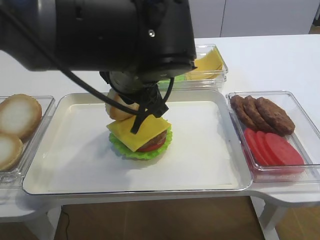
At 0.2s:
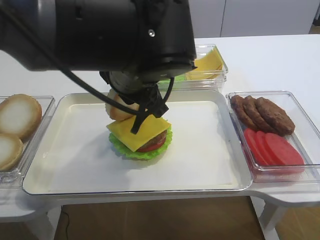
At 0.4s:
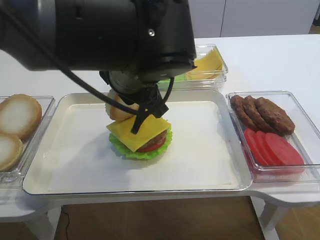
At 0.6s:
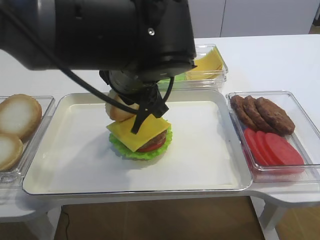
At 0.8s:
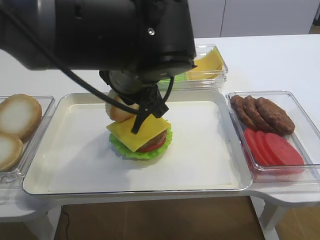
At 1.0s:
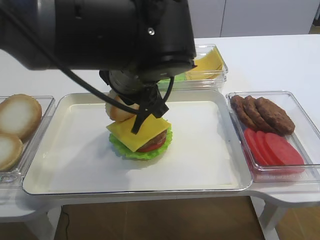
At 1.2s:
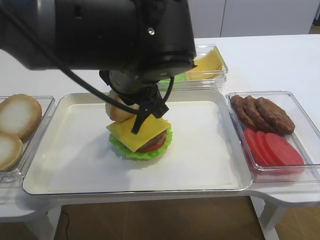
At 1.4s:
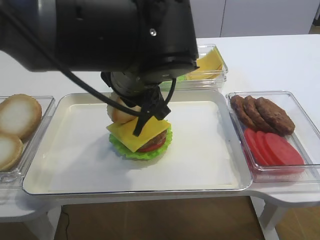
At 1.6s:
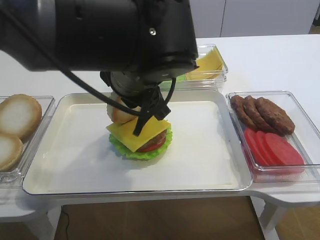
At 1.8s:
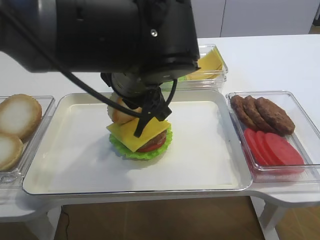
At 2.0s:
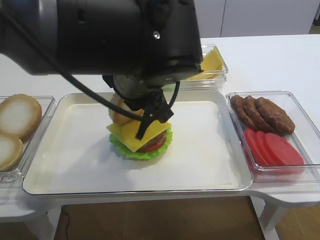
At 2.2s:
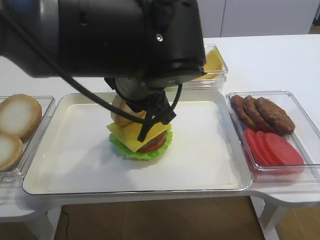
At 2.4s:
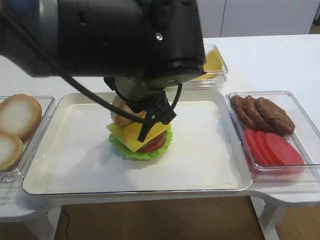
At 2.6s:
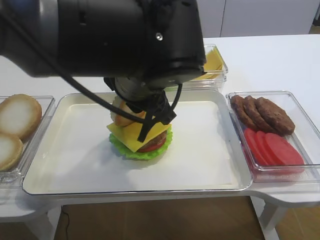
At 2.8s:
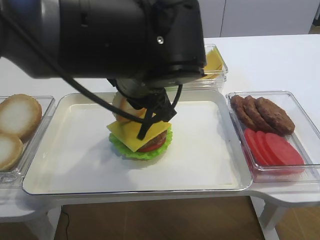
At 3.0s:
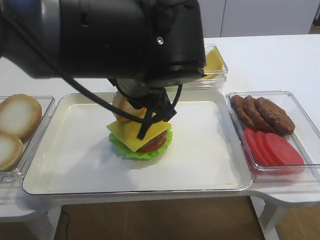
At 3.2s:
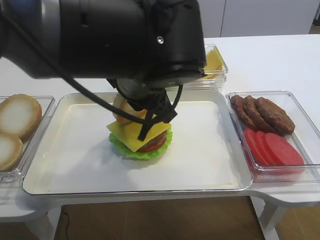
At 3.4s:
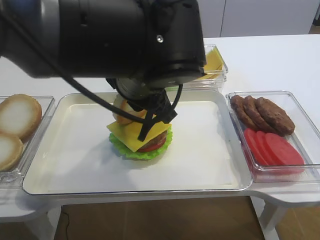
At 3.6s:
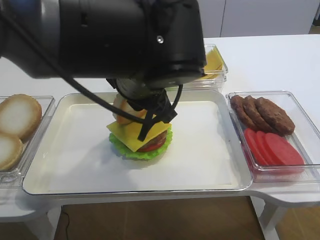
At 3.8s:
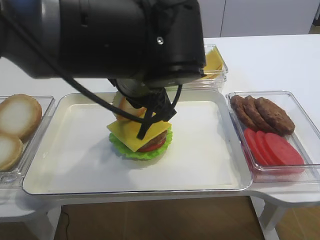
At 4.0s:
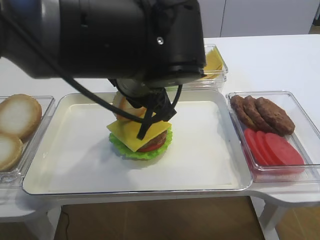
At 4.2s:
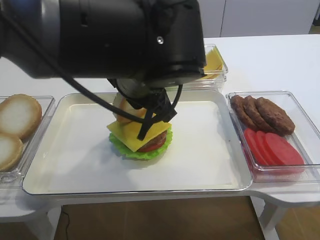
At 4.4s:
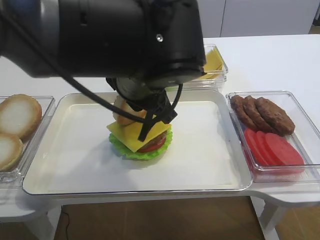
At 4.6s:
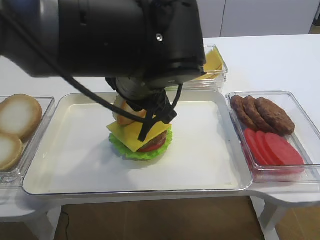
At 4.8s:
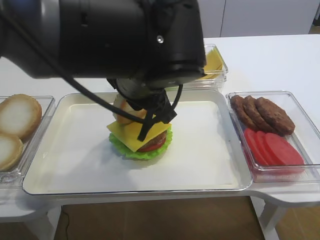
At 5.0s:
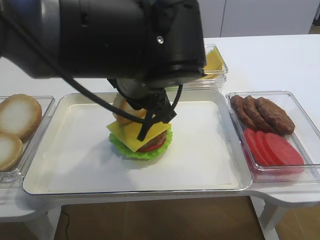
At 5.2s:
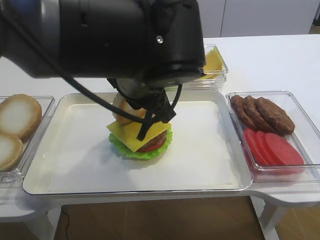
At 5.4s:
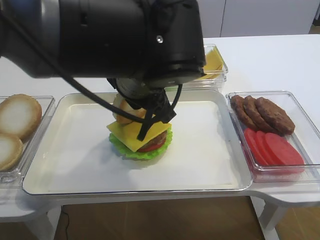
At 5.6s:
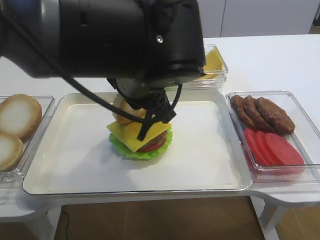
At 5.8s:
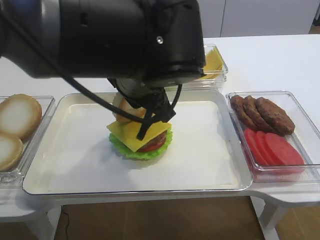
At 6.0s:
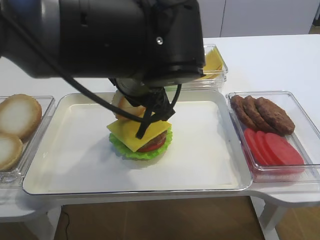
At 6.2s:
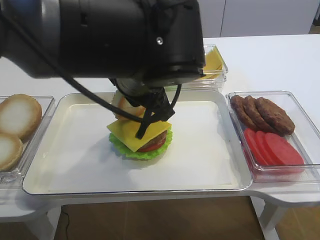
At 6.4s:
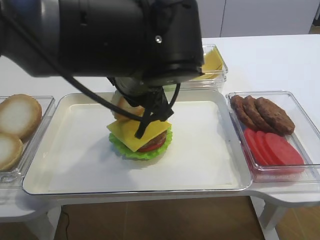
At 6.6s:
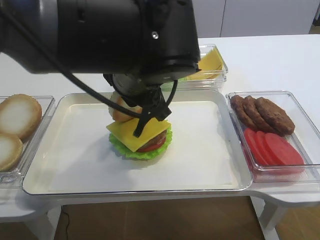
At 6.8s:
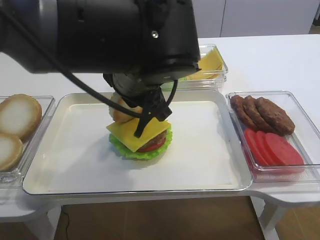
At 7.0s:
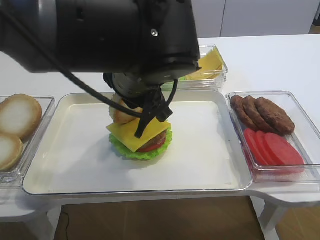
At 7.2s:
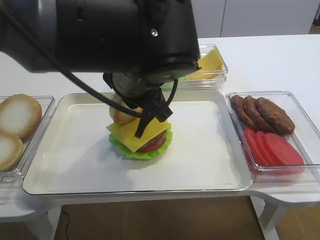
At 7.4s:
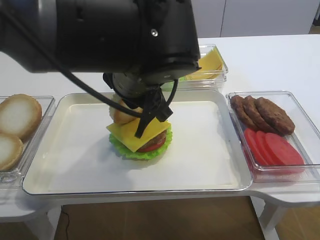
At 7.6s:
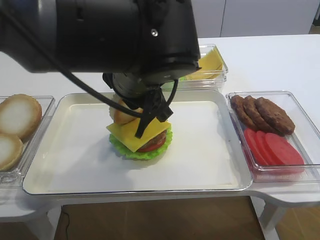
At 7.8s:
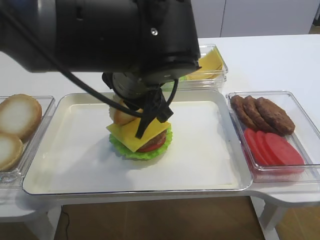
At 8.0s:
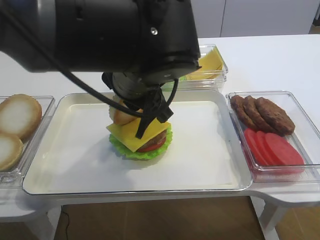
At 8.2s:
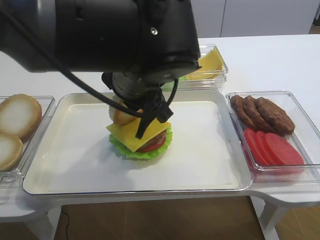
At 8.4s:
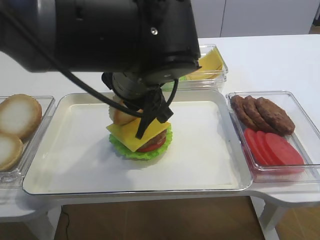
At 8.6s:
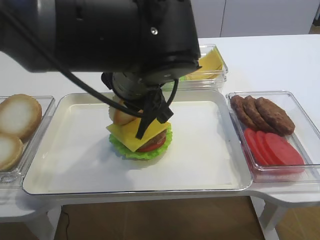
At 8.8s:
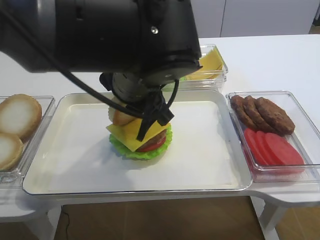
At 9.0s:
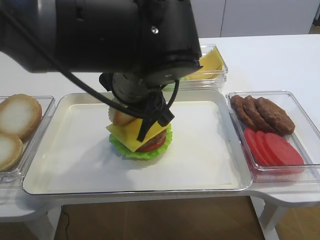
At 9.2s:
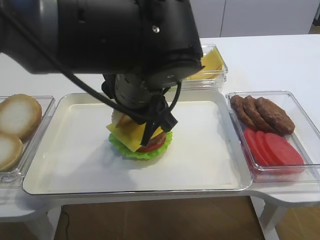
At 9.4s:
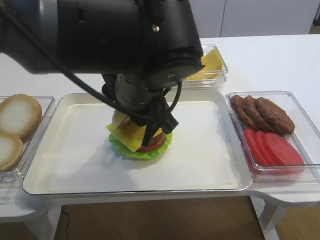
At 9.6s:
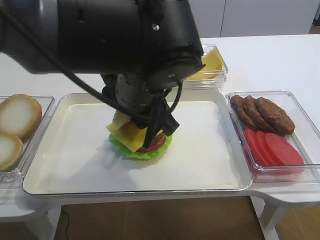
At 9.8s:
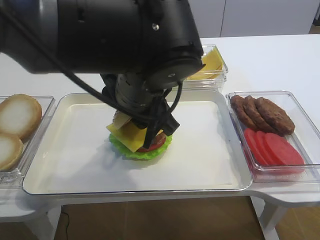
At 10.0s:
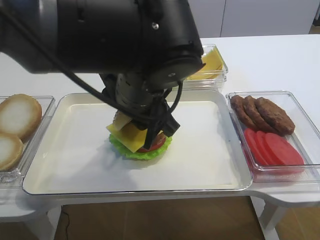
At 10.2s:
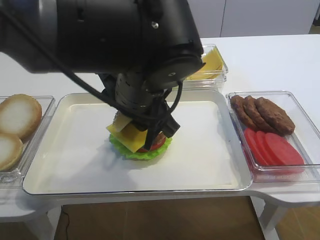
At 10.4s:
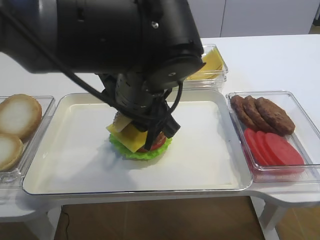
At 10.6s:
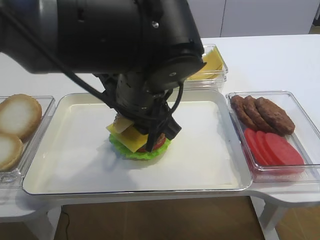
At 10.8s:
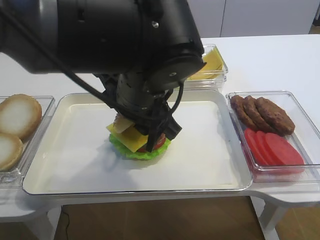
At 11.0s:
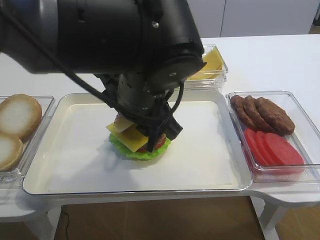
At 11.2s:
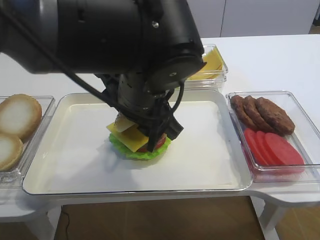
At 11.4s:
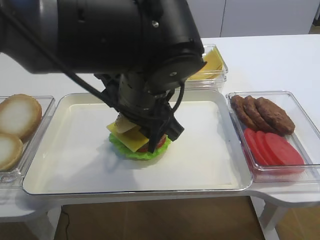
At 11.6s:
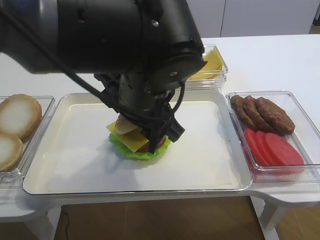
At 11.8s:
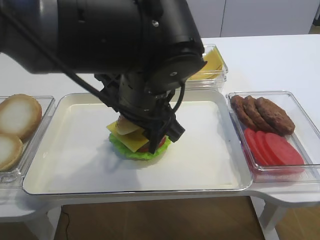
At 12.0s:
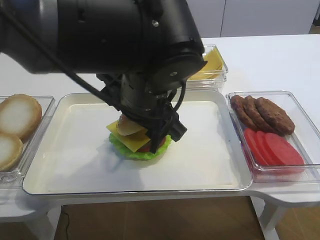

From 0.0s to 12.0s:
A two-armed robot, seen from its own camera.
From 0.0s to 1.6s: Both grippers stay put.
From 1.6s to 9.0s: Neither gripper changes place.
From 9.0s to 10.4s: The grippers stay close to where they were, moving slightly.
From 10.4s to 12.0s: The left gripper opens.

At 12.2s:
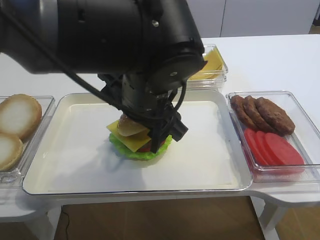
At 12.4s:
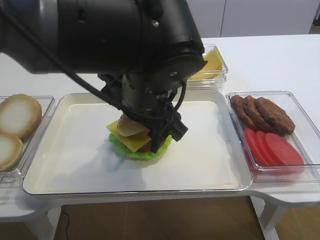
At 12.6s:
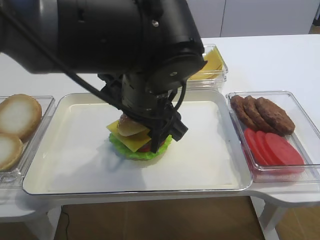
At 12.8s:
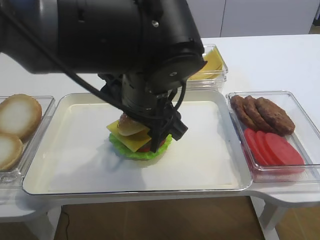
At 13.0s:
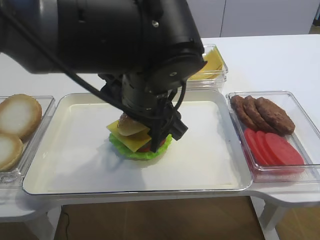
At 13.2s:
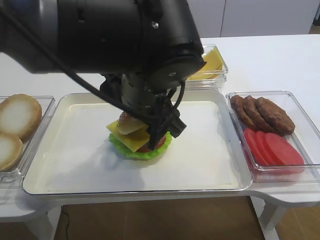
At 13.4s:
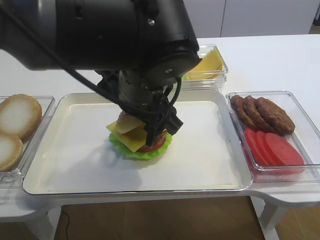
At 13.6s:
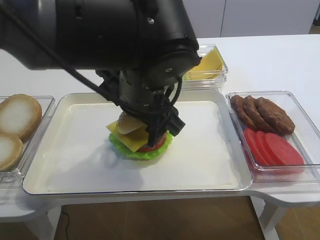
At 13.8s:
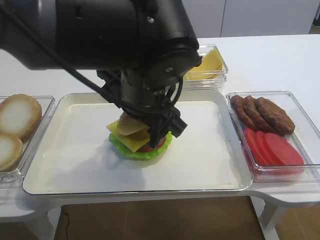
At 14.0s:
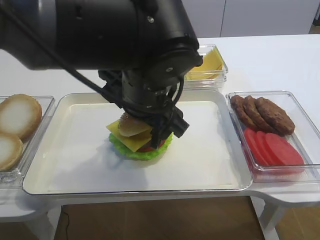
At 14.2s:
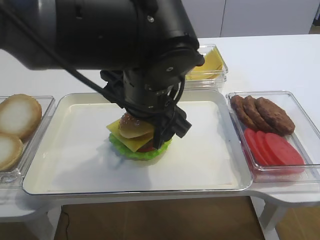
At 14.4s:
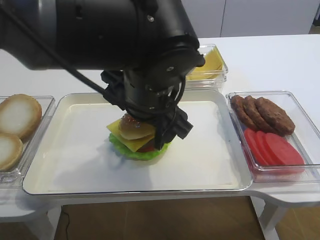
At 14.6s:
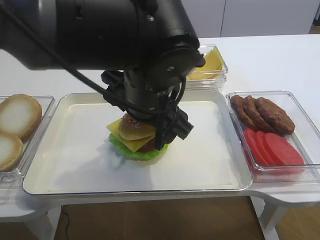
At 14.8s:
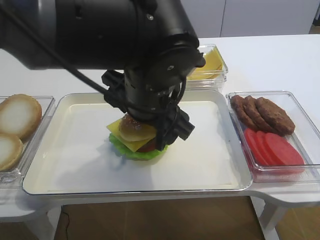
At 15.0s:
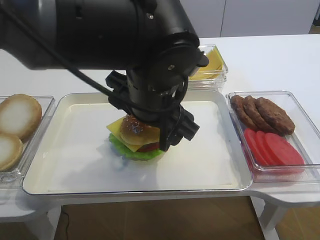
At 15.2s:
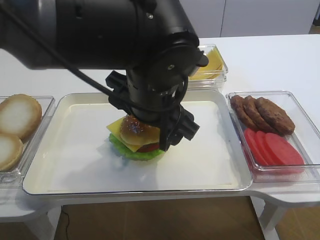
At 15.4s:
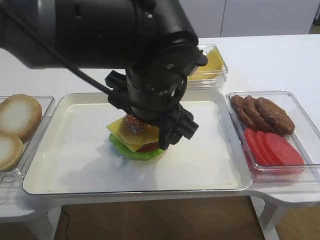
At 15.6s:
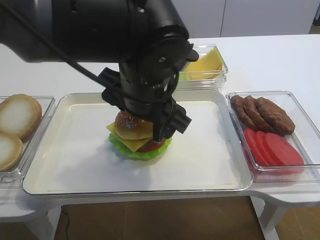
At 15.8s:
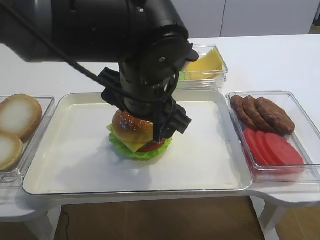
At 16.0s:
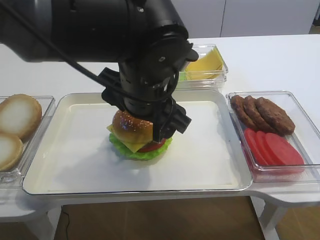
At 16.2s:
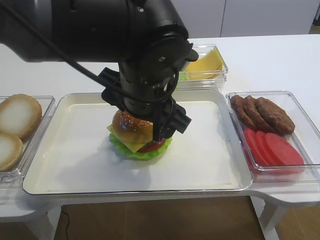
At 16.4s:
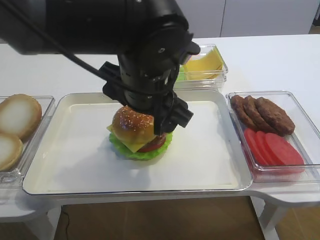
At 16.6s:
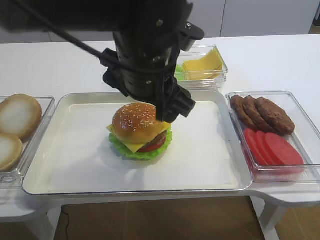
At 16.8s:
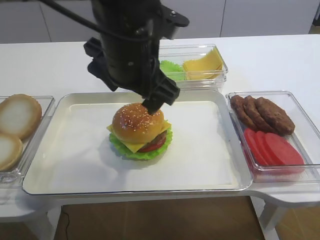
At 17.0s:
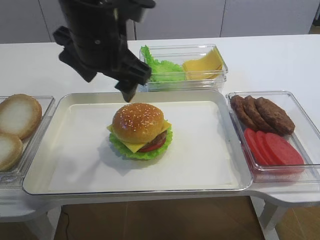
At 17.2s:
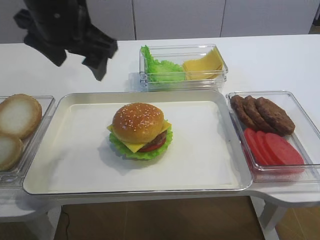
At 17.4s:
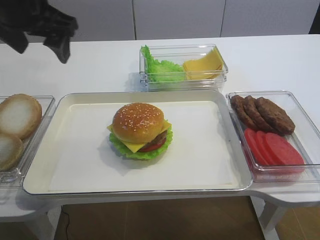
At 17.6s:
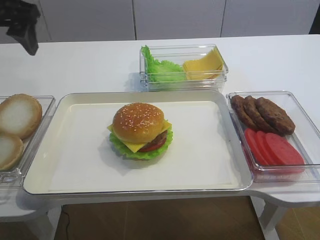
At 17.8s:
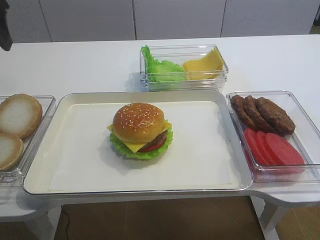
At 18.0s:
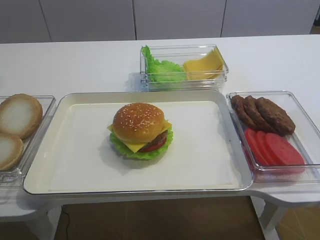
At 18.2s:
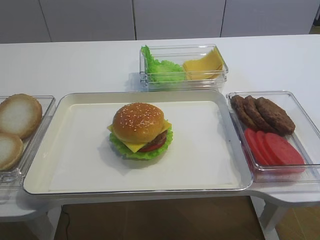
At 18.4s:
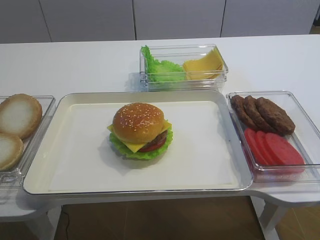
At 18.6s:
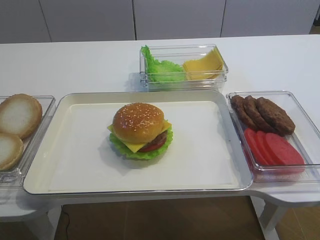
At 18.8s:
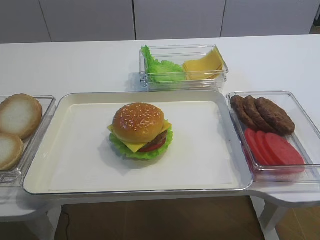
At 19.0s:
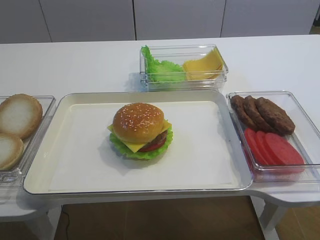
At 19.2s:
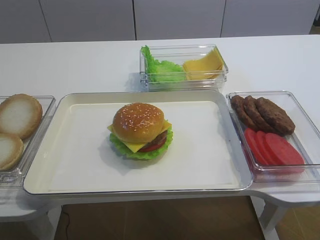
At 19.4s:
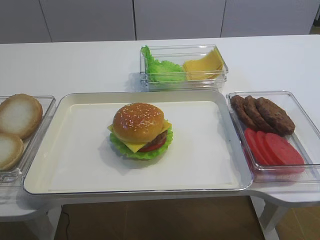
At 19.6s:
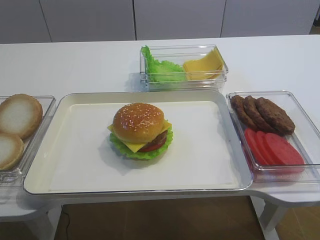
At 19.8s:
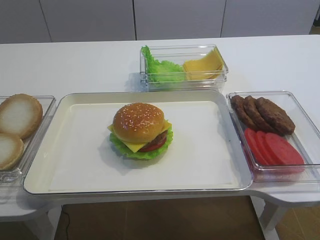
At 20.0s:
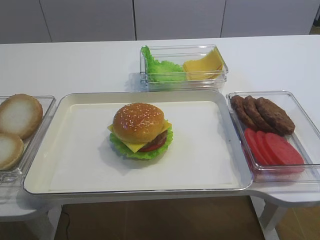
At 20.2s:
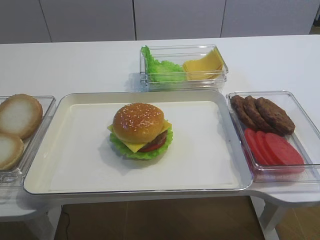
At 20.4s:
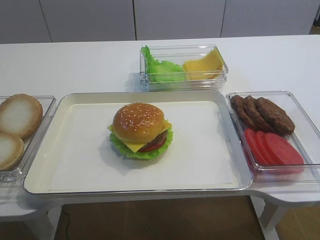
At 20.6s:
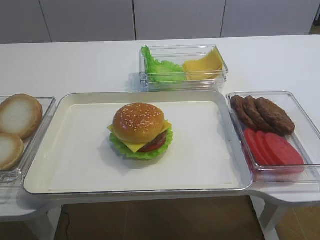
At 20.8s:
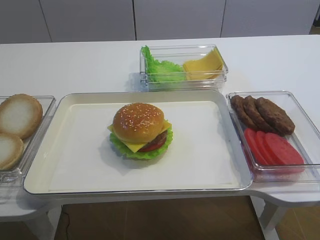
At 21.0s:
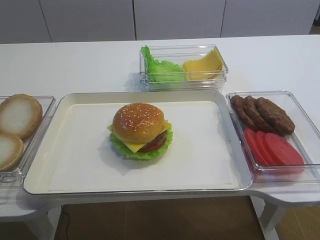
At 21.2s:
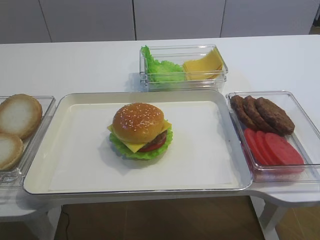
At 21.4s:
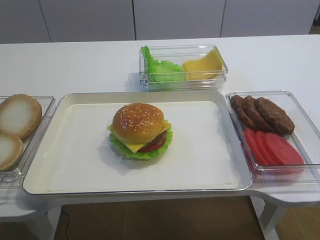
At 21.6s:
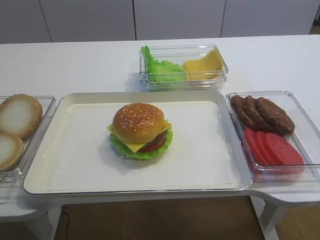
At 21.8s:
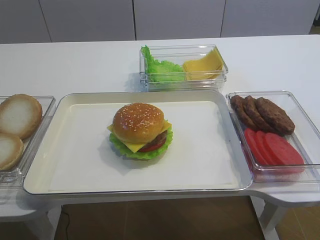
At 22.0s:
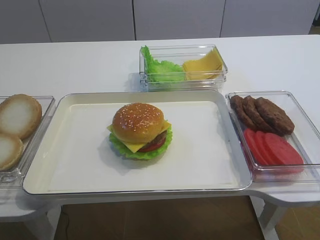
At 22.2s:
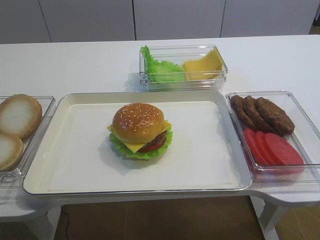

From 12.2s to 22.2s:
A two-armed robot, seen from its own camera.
Step, from 12.2s to 16.8s: Place the hamburger lid on the cheese slice with the left gripper.
From 12.2s to 13.6s: Both grippers stay put.
From 13.6s to 16.4s: The grippers move only a little.
From 16.4s to 18.0s: The left gripper heads to the left, covering approximately 30 cm.

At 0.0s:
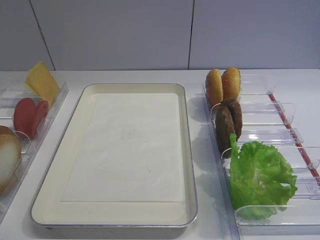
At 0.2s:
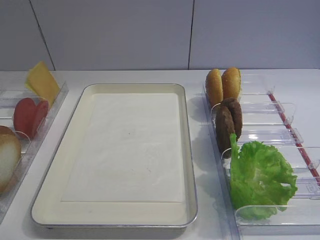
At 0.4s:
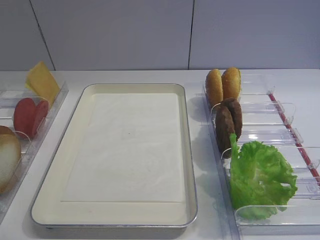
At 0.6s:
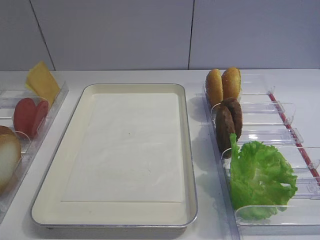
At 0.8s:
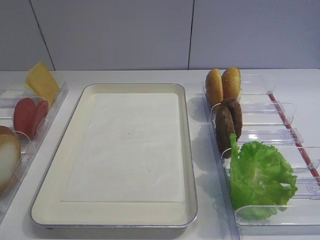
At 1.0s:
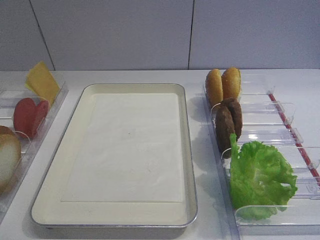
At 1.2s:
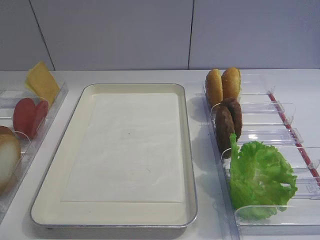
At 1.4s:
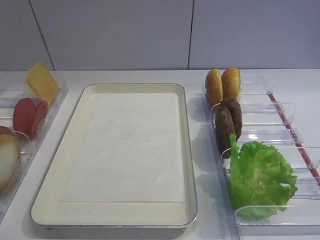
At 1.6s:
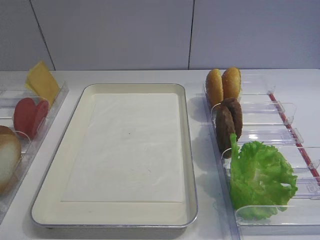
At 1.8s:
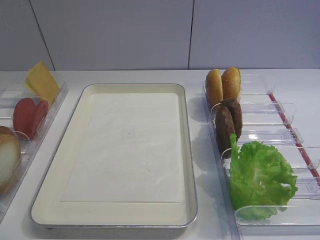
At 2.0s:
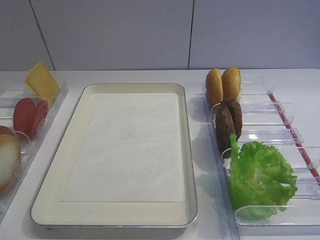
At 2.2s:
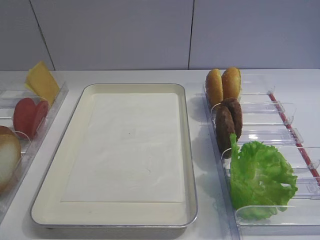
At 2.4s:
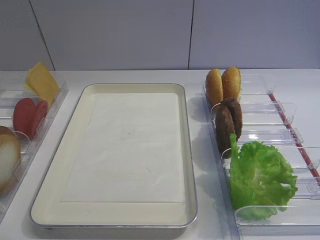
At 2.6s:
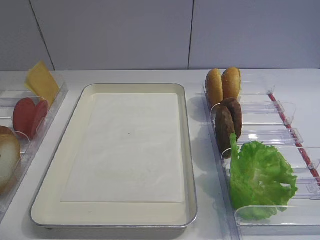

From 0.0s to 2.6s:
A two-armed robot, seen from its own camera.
From 0.0s to 1.2s: Neither gripper changes place.
